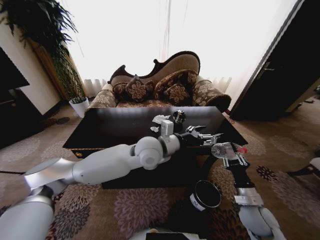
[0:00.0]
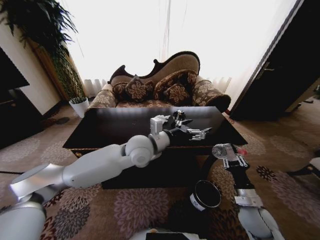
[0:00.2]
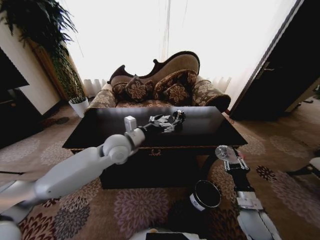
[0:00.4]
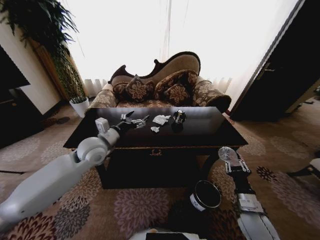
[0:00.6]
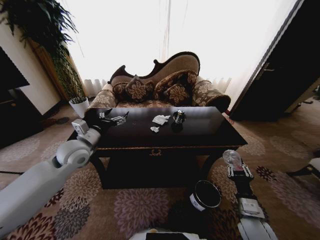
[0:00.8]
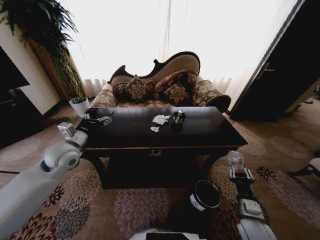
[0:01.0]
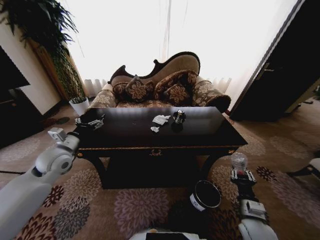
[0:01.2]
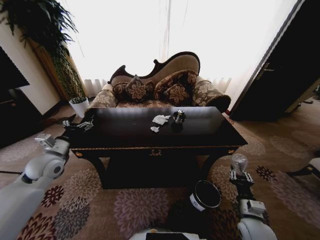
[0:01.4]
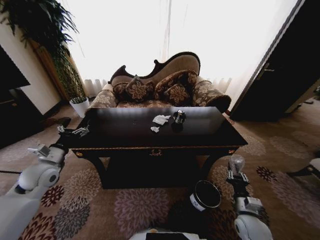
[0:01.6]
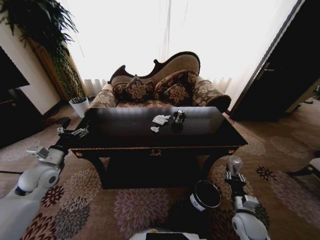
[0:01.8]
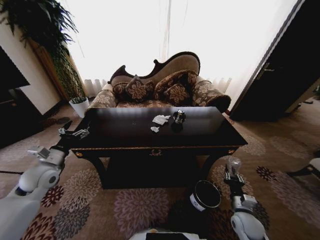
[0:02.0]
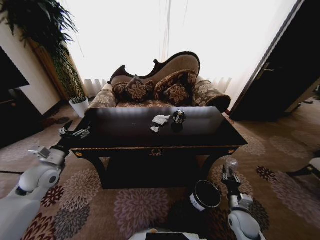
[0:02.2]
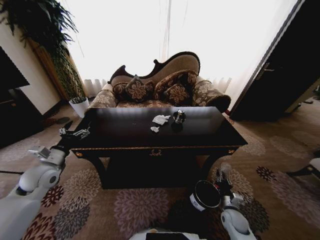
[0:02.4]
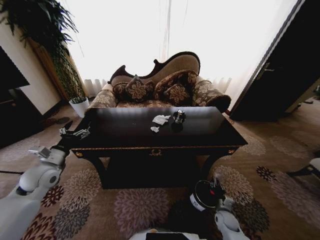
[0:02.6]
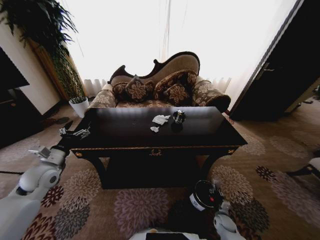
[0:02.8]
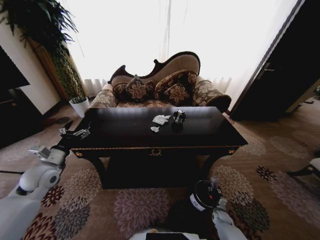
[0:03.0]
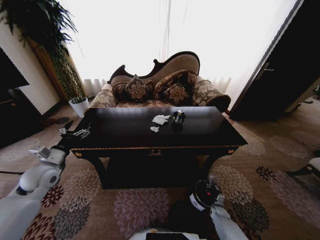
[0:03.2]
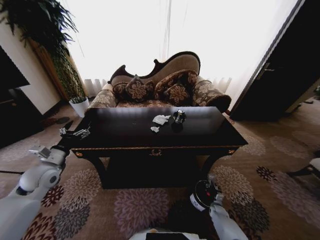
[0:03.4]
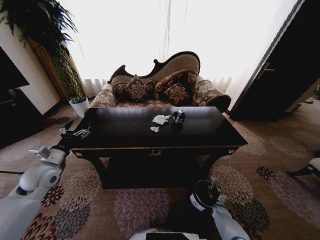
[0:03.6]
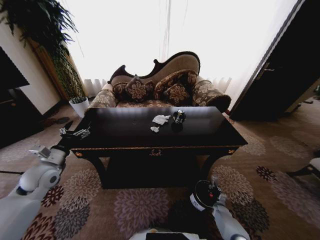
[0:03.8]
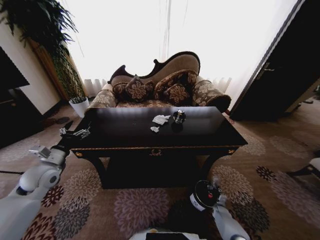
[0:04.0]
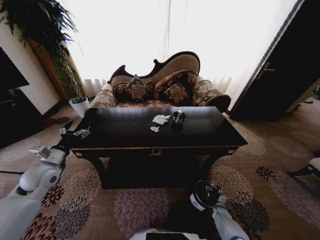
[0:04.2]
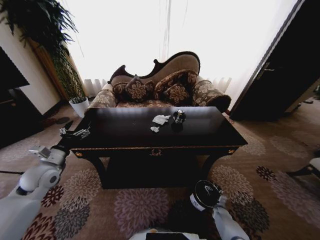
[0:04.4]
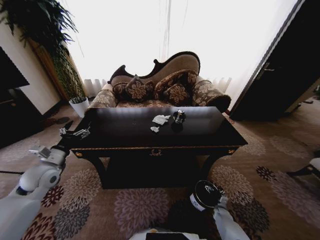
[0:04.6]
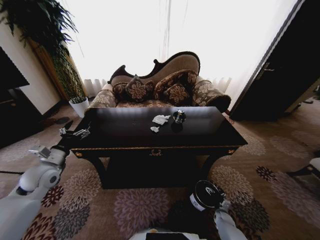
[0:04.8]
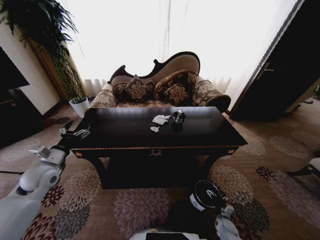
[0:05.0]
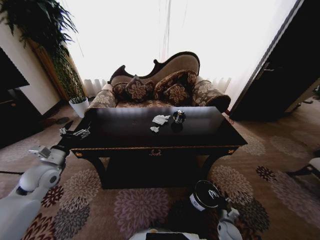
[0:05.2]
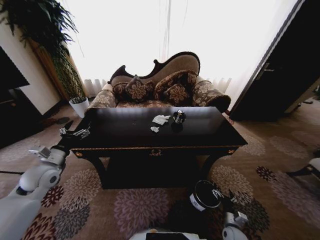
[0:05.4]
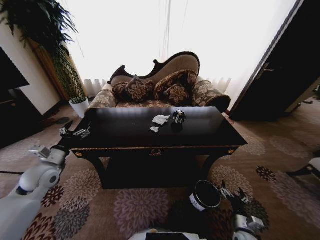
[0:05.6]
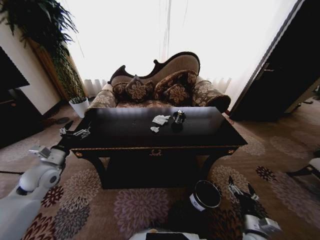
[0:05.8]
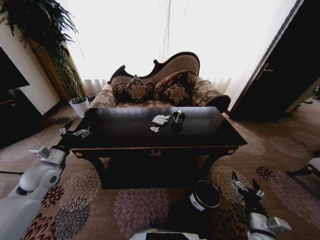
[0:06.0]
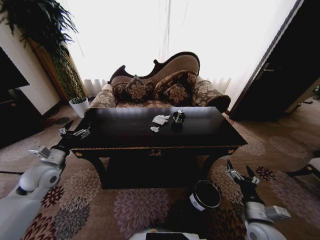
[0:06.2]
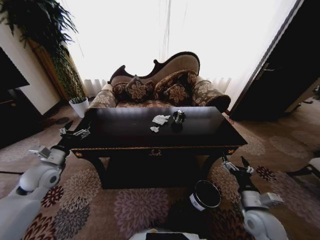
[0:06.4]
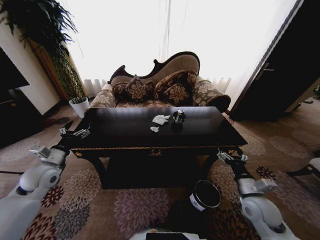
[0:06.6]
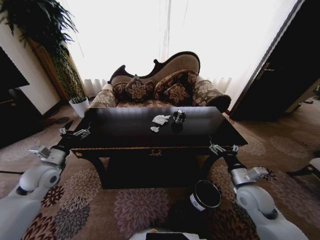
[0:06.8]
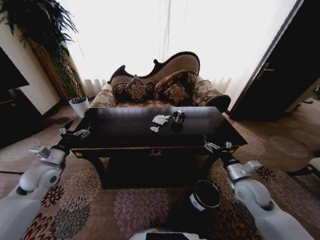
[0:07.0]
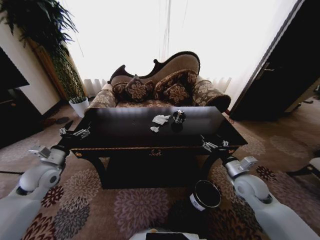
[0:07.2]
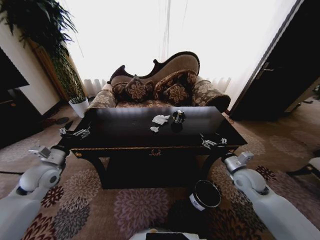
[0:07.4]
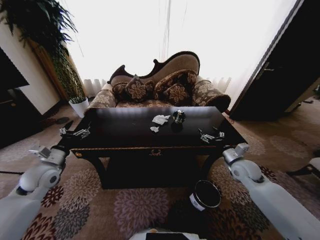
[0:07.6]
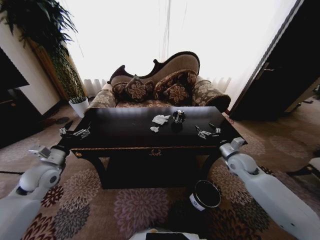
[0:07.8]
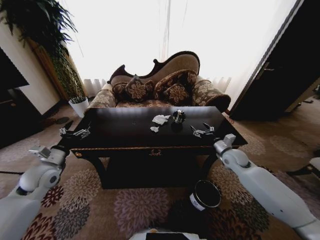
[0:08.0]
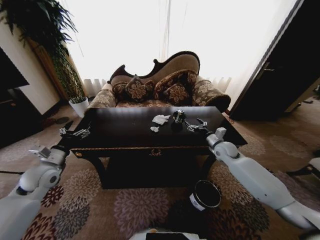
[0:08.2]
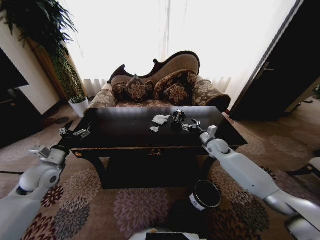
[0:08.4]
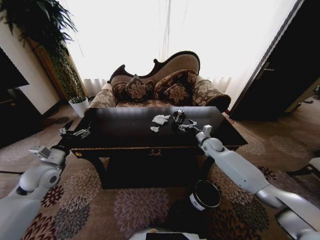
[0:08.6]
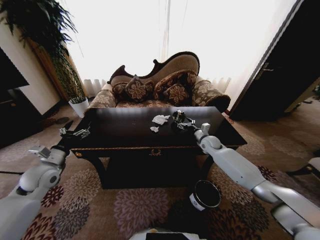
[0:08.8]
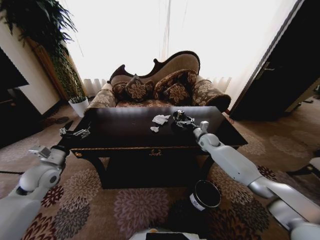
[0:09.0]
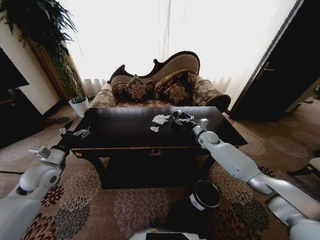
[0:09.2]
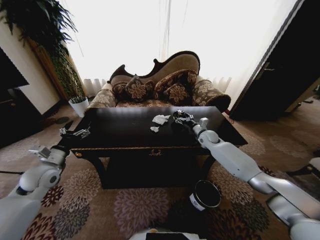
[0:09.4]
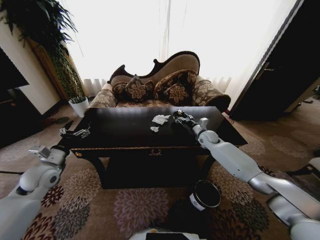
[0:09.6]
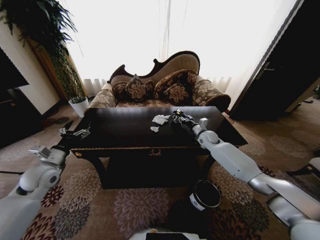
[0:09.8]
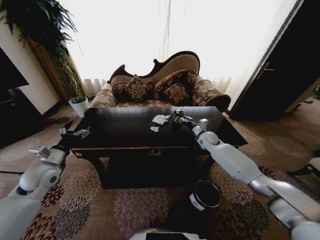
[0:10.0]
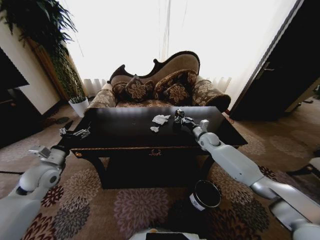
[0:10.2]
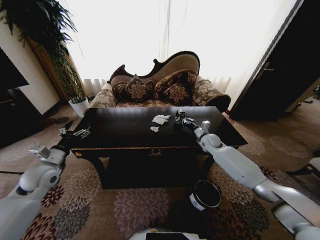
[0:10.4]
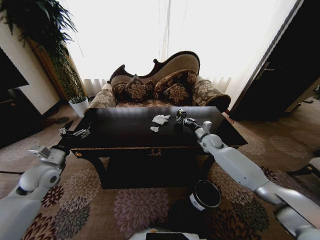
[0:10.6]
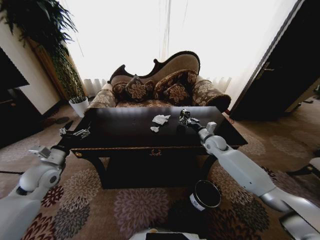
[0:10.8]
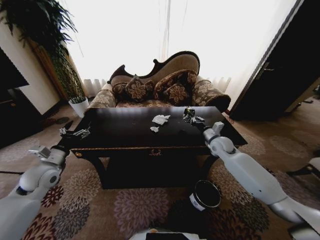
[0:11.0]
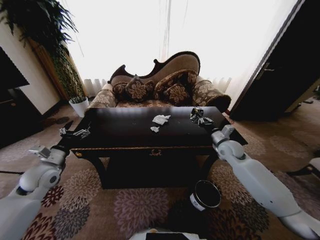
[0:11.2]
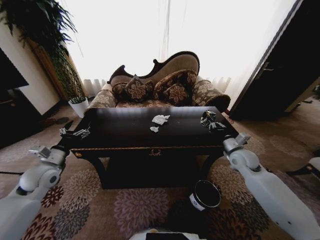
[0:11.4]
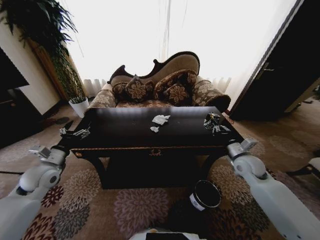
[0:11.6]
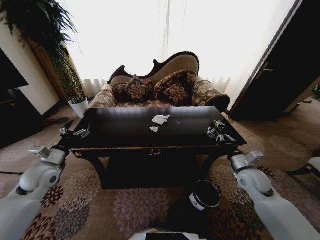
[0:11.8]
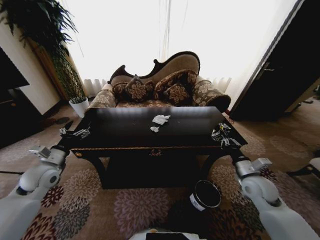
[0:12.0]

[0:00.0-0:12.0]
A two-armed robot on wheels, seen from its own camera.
Task of the whole recording: Move to the front of the table and place the trash on the table into the trash bin.
0:00.0 to 0:01.6: The right gripper ends up about 5 cm from where it was, while the left gripper goes some 40 cm to the left, and opens its fingers.
0:01.6 to 0:03.0: The right gripper travels downward by approximately 25 cm.
0:03.0 to 0:04.4: The right gripper moves approximately 5 cm, and opens its fingers.
0:04.4 to 0:06.0: The right gripper is displaced upward and backward by roughly 30 cm.
0:06.0 to 0:07.6: The right gripper heads forward and upward, covering roughly 25 cm.
0:07.6 to 0:09.0: The right gripper moves forward, about 20 cm.
0:09.0 to 0:10.4: The right gripper closes.
0:10.4 to 0:12.0: The right gripper heads backward, covering roughly 25 cm.

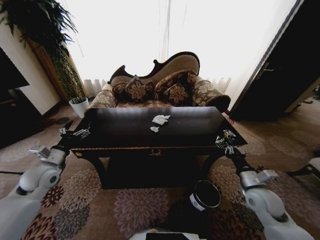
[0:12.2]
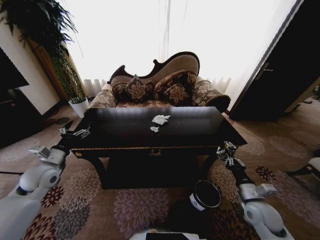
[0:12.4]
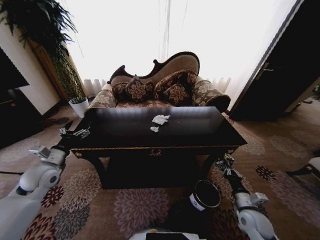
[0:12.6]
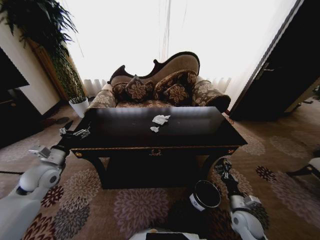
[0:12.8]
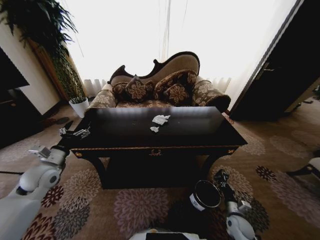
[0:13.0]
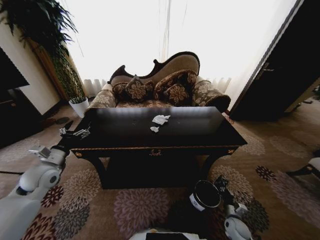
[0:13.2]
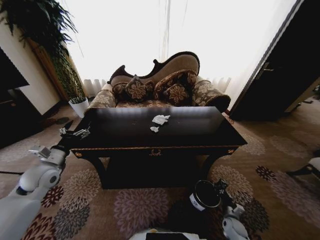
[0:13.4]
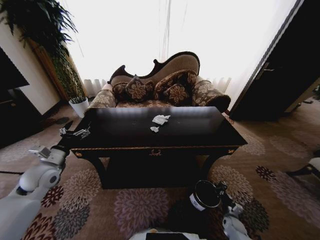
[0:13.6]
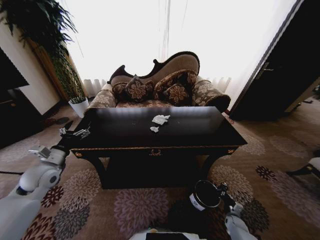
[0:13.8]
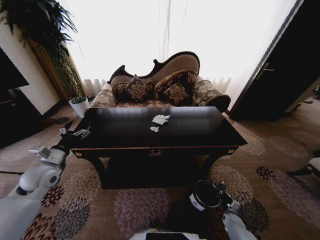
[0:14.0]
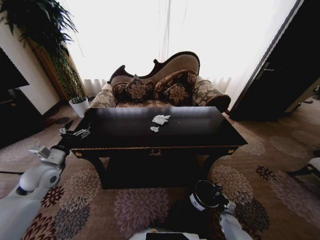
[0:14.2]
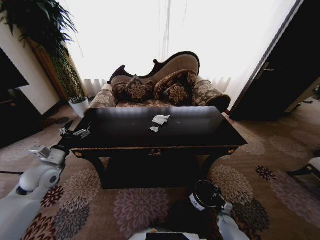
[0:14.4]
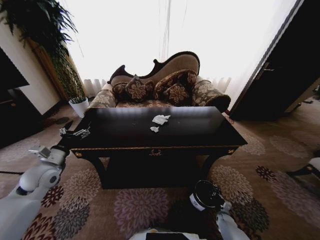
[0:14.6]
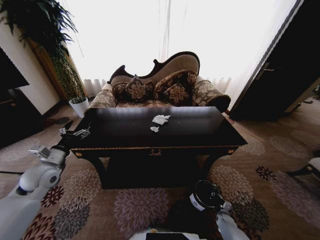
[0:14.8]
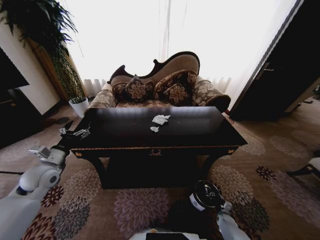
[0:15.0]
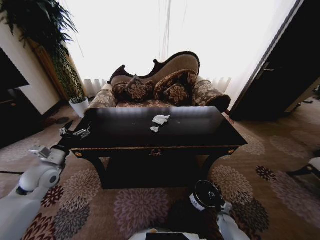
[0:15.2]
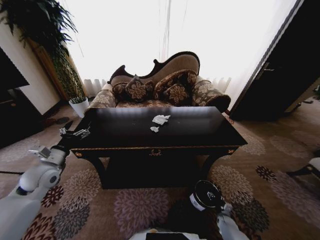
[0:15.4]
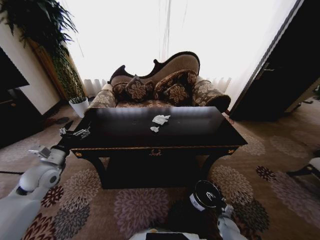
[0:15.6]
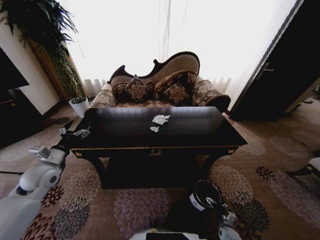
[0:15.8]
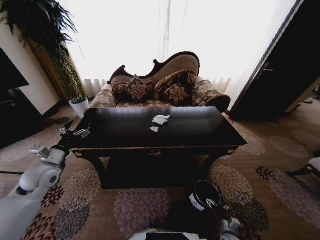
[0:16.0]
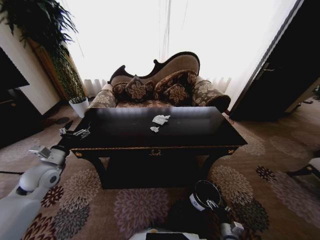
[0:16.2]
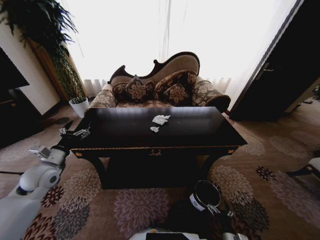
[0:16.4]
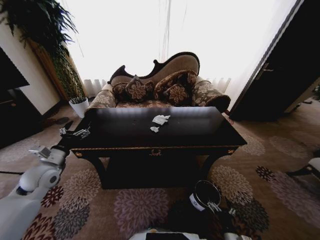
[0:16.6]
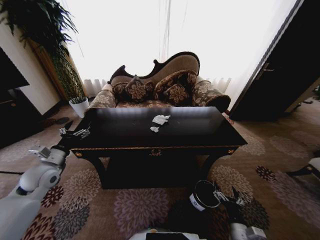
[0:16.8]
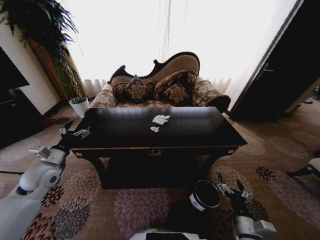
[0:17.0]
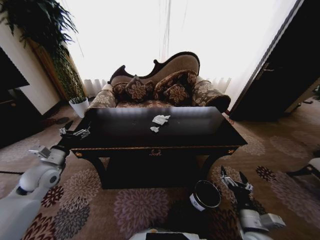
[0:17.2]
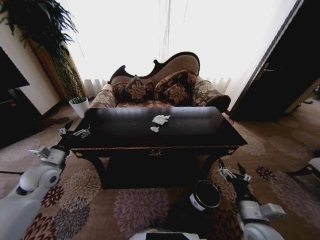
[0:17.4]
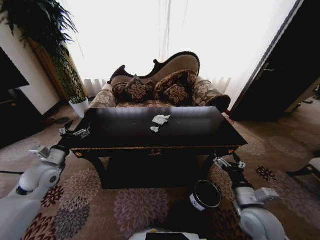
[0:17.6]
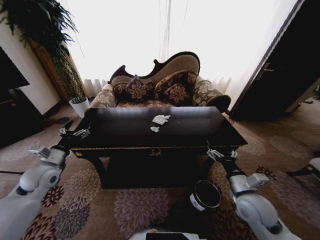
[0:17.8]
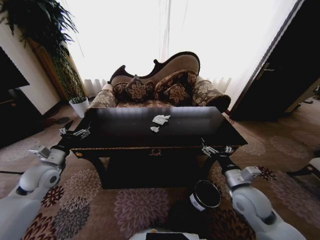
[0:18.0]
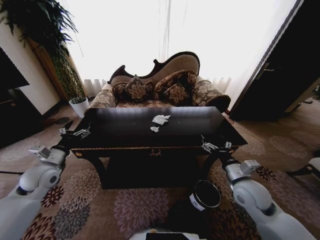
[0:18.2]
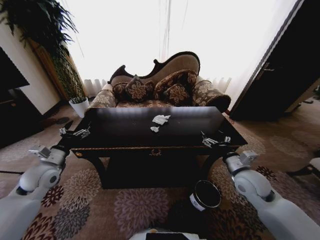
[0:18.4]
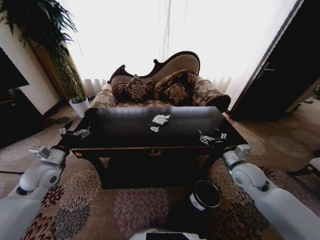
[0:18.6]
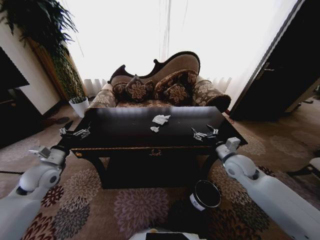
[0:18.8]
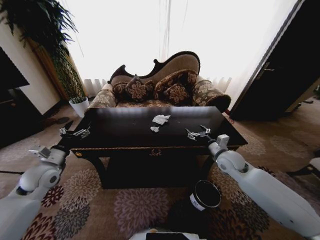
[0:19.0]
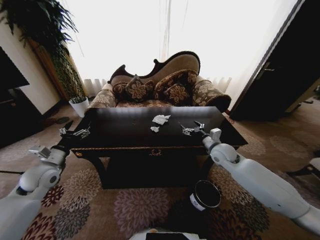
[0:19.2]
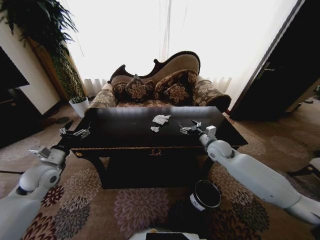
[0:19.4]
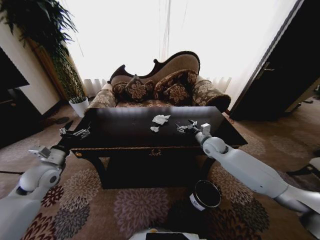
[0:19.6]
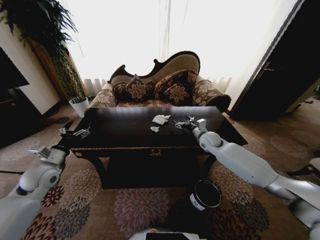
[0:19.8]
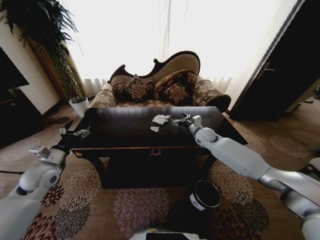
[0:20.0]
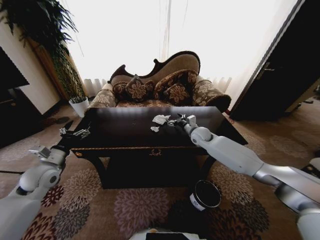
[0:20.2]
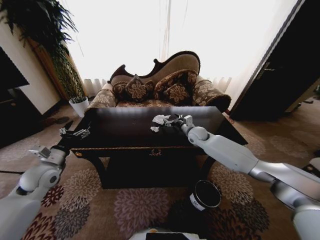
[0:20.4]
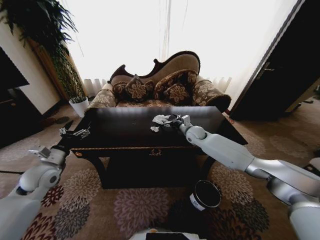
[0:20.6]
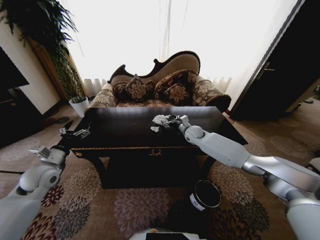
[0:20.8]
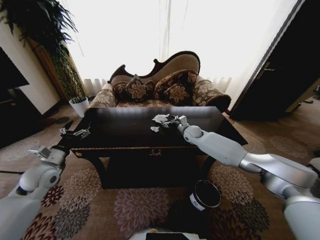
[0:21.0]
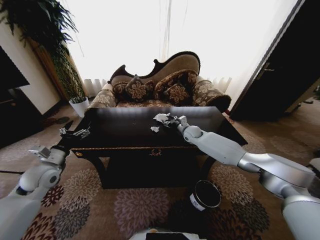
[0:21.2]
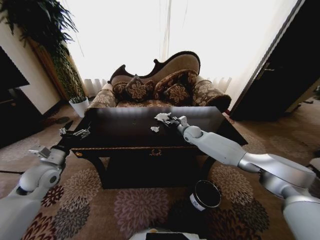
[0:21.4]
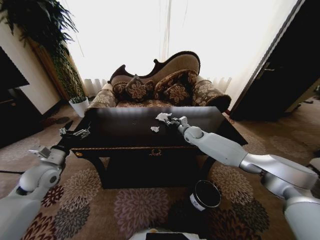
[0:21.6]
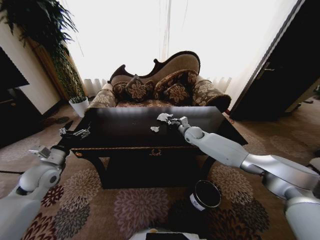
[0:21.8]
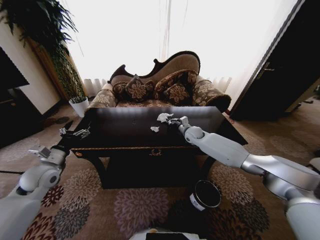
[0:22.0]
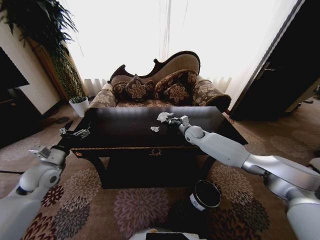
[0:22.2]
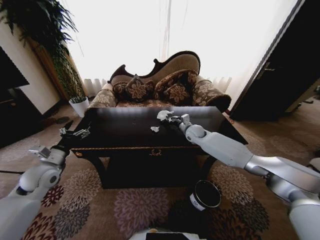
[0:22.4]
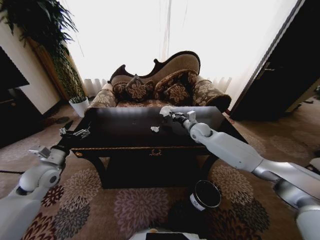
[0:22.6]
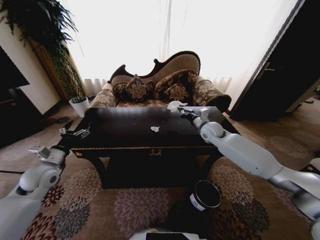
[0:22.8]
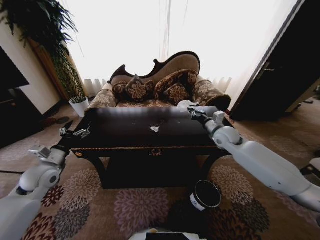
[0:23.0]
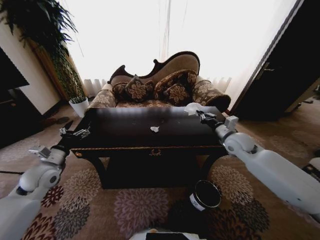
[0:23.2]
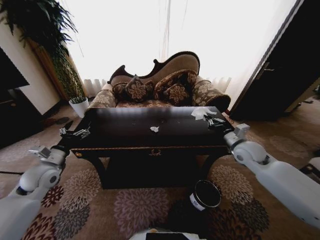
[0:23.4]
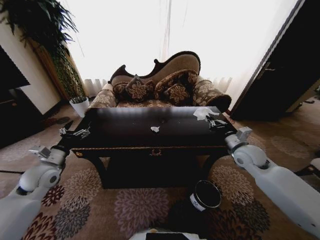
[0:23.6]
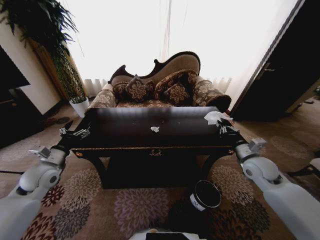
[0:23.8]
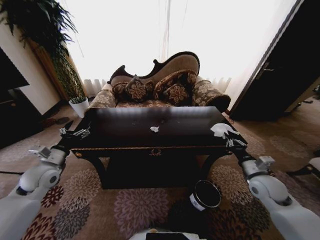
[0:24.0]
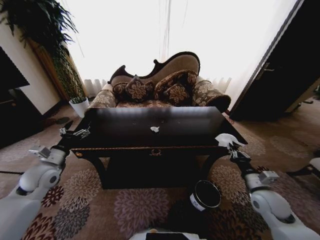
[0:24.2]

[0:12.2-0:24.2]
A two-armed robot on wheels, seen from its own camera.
Task of the whole recording: Move to the front of the table and place the trash on the table into the trash bin.
0:12.2 to 0:13.8: The right gripper goes some 35 cm downward.
0:13.8 to 0:15.2: The right gripper opens its fingers.
0:15.2 to 0:16.6: The right gripper is displaced upward, backward and to the left by some 25 cm, and opens up.
0:16.6 to 0:18.2: The right gripper goes about 30 cm upward and forward.
0:18.2 to 0:19.8: The right gripper is displaced forward by some 25 cm.
0:19.8 to 0:21.2: The right gripper travels forward and to the left by about 10 cm.
0:21.2 to 0:22.6: The right gripper closes its fingers.
0:22.6 to 0:24.2: The right gripper goes some 35 cm backward and to the right.
